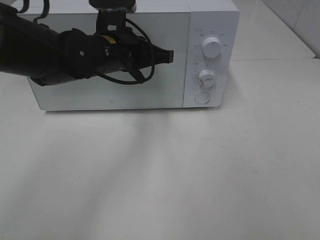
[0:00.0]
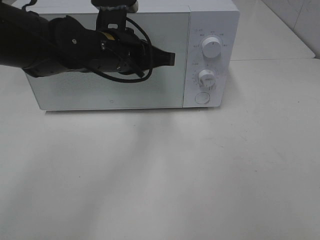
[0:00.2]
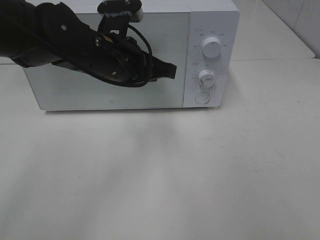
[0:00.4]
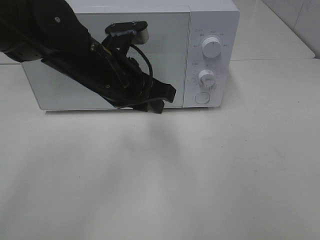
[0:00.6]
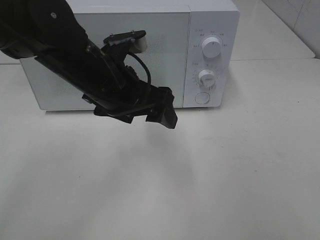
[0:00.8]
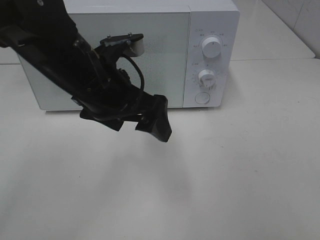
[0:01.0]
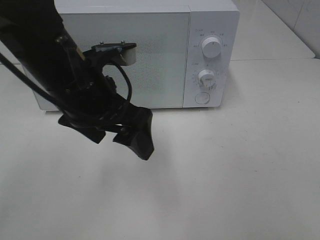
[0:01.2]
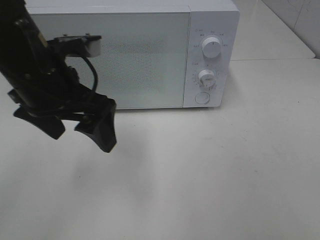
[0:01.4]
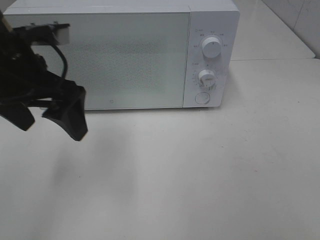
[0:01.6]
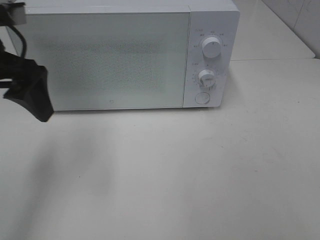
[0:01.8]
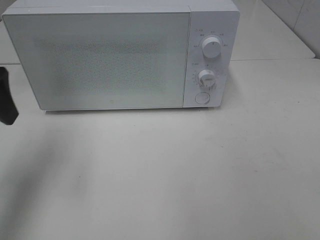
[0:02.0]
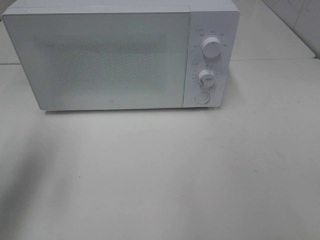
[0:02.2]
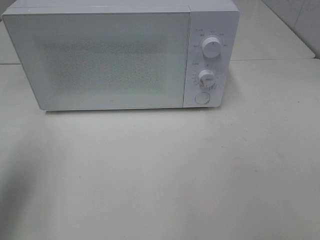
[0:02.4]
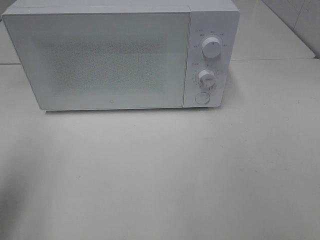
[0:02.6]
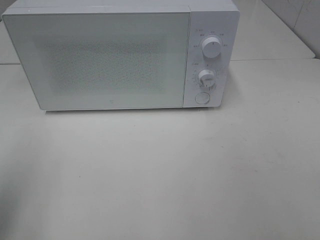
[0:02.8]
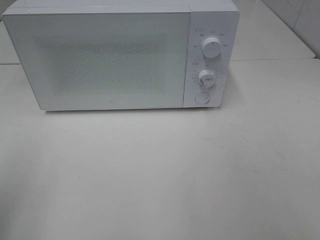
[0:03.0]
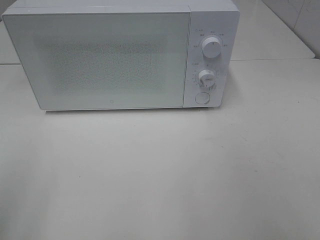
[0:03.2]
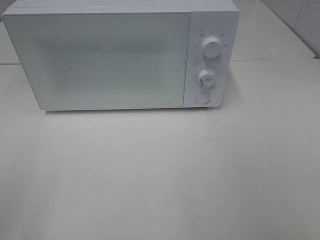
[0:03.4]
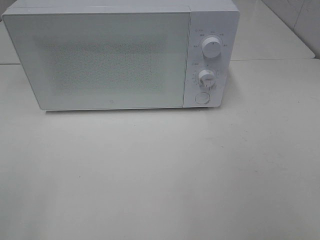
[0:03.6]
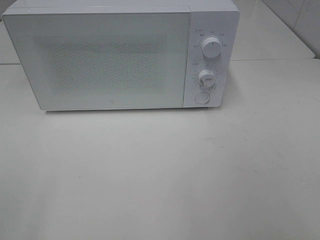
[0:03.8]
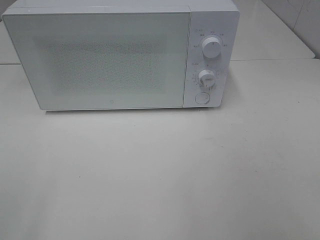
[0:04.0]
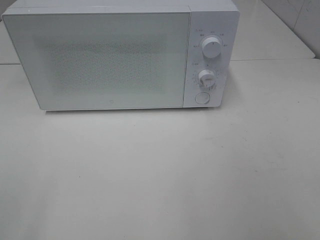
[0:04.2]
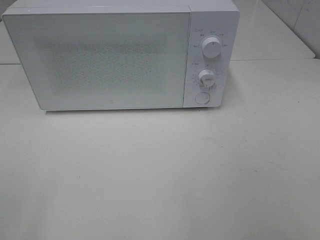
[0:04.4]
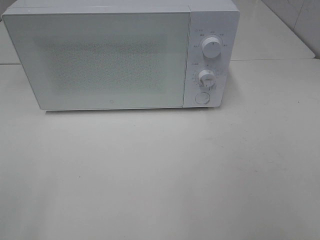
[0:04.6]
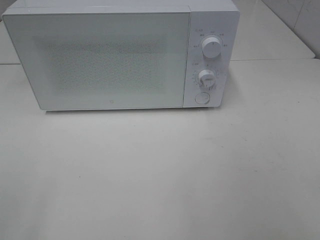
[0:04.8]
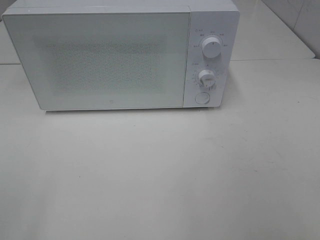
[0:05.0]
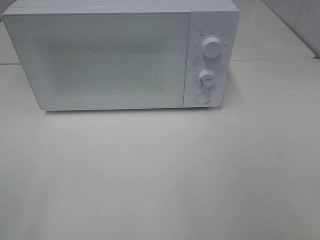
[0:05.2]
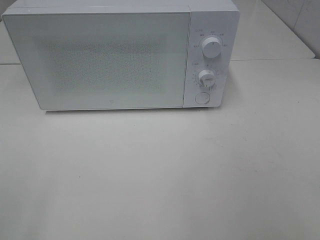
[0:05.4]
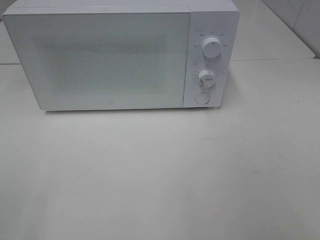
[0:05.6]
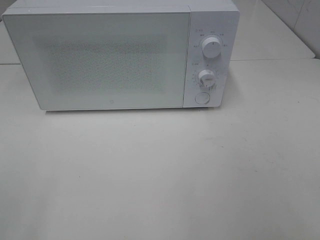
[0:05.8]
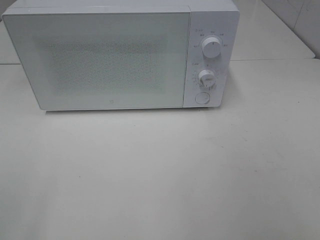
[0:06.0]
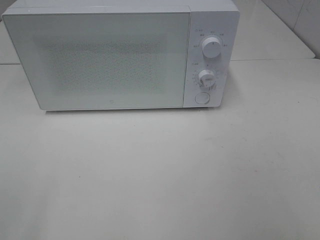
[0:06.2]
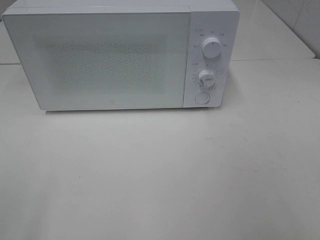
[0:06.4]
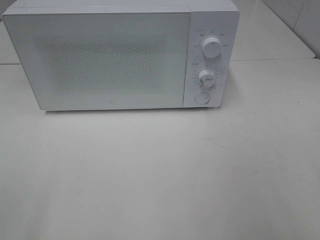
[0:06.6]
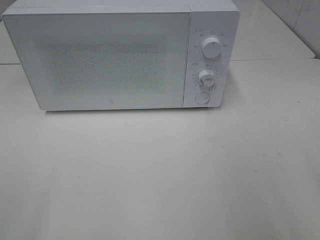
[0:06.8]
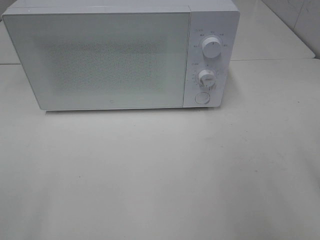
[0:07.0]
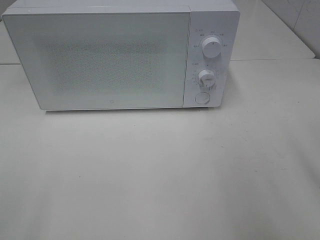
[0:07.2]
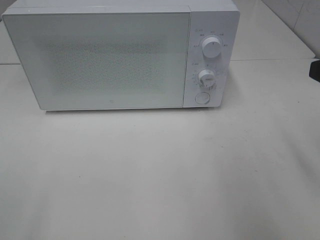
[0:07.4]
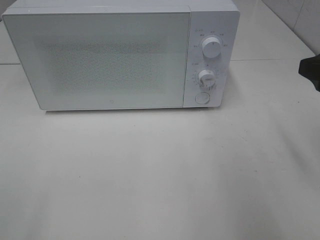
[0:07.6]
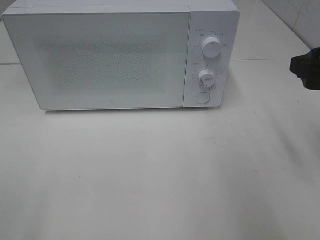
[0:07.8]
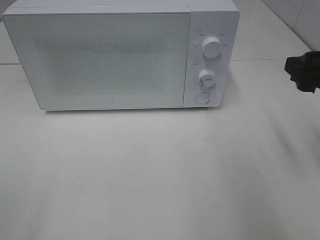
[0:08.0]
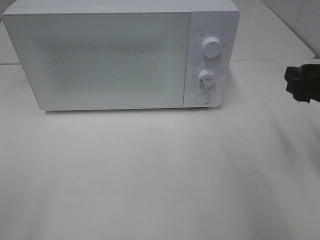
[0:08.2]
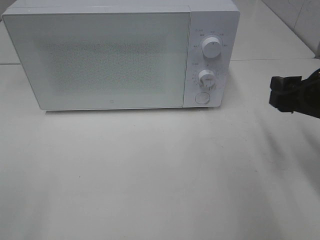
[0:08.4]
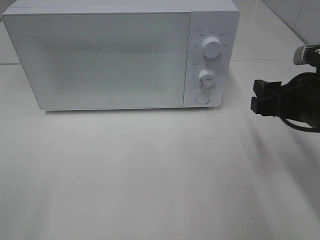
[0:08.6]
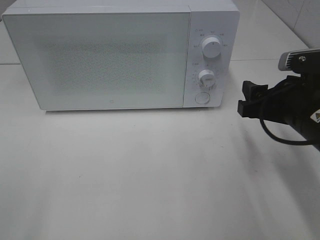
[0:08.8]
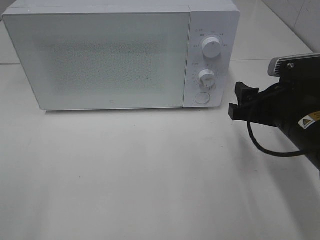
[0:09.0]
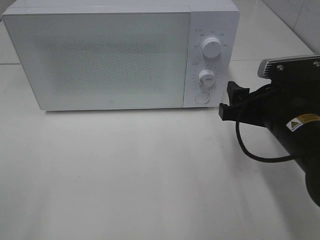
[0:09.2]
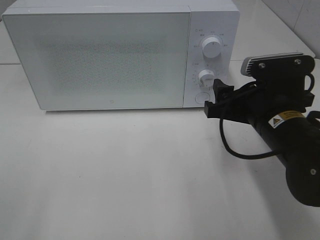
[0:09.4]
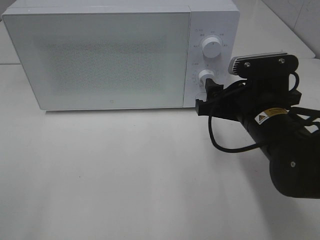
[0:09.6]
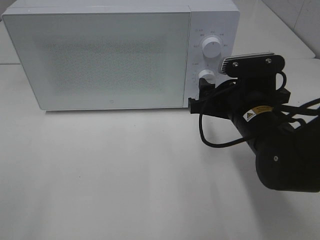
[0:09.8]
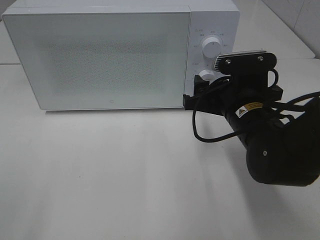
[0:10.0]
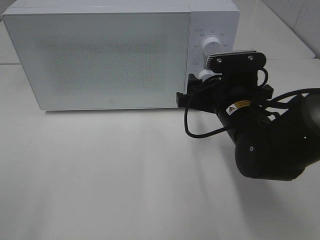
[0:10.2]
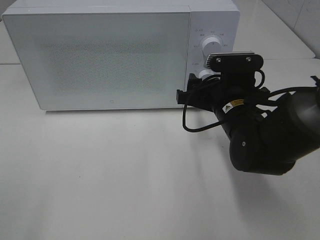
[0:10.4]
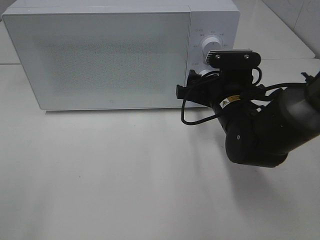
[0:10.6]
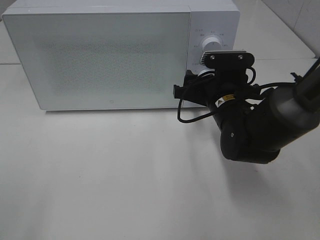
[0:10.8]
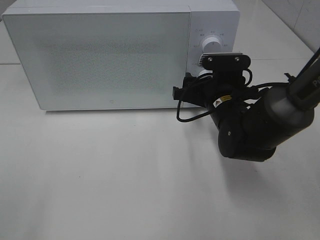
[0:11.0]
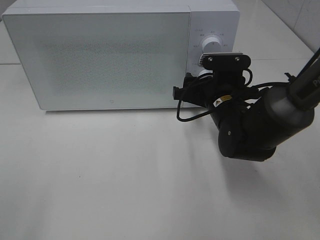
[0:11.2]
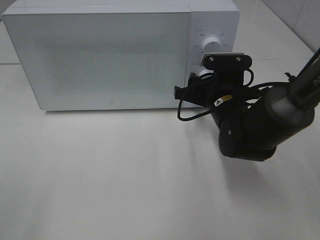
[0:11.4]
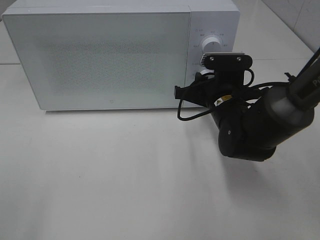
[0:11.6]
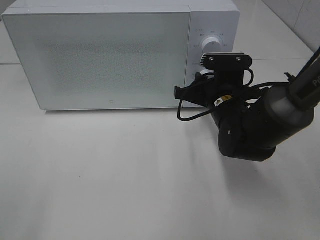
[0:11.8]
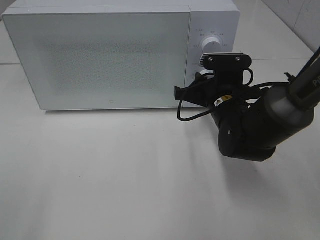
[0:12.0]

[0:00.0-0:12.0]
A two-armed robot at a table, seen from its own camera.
Task of the whole recording: Heat Sandwich.
0:00.0 to 0:01.6: The left gripper heads to the left, backward and upward, covering some 15 cm, and opens up.
0:01.6 to 0:03.0: The left gripper goes approximately 20 cm backward and to the left.
0:04.4 to 0:06.0: The two grippers keep their place.
0:06.0 to 0:07.6: The right gripper travels forward by approximately 20 cm.
0:07.6 to 0:09.0: The right gripper heads downward and to the left, covering some 10 cm.
0:09.0 to 0:10.4: The right gripper travels to the left and forward by approximately 10 cm.
0:10.4 to 0:12.0: The right gripper closes.

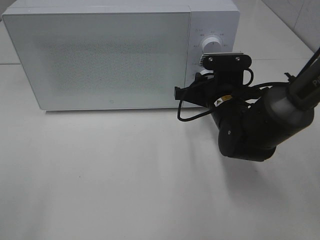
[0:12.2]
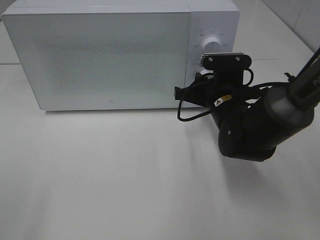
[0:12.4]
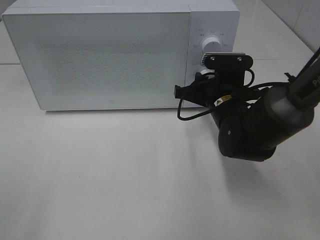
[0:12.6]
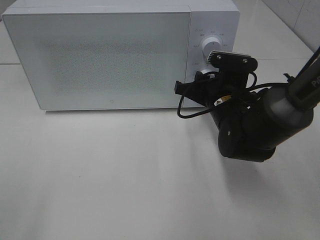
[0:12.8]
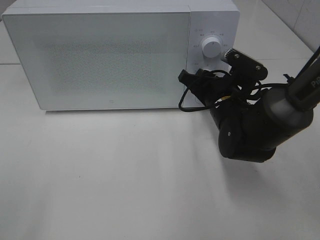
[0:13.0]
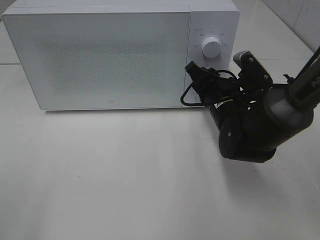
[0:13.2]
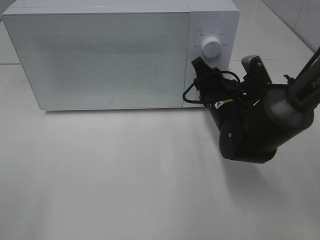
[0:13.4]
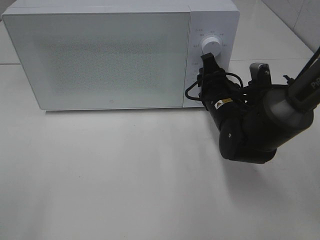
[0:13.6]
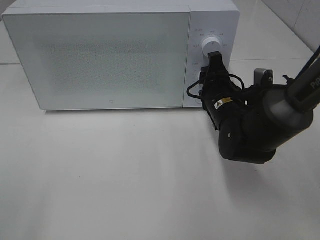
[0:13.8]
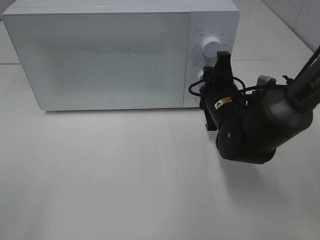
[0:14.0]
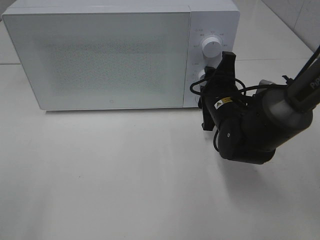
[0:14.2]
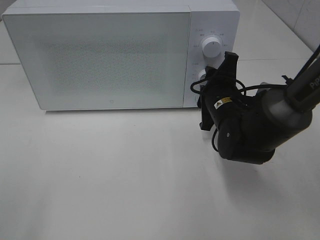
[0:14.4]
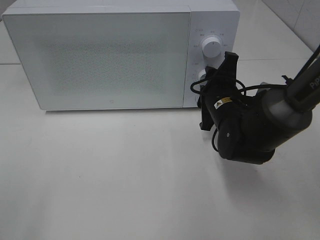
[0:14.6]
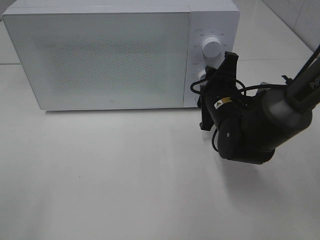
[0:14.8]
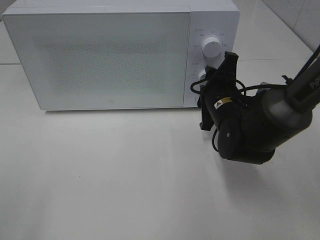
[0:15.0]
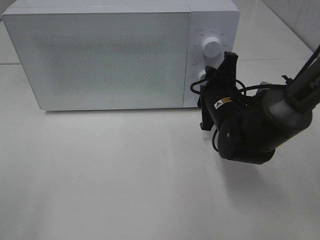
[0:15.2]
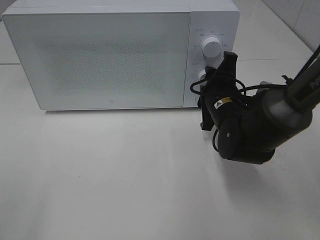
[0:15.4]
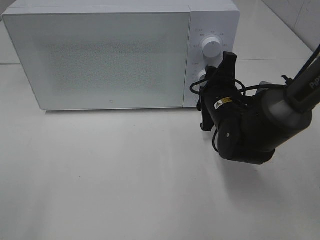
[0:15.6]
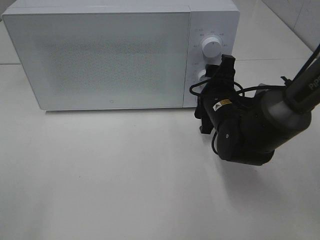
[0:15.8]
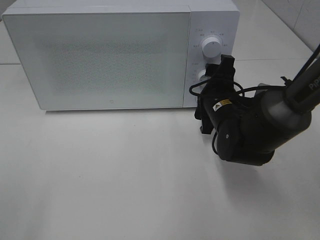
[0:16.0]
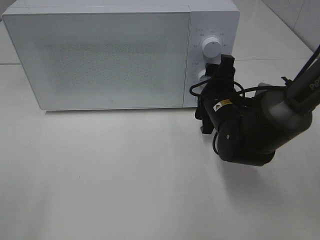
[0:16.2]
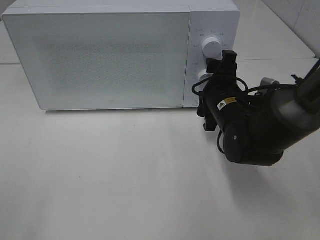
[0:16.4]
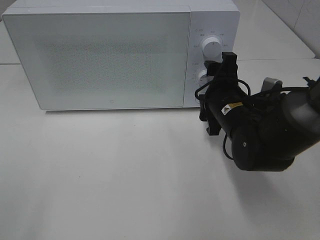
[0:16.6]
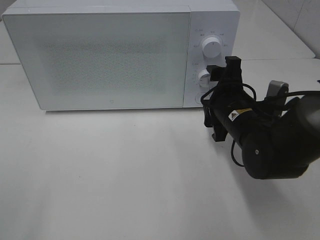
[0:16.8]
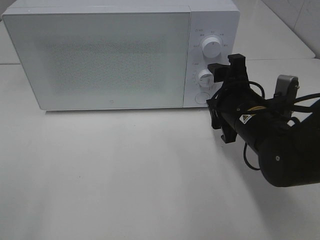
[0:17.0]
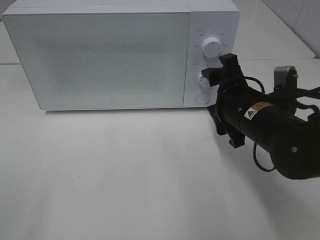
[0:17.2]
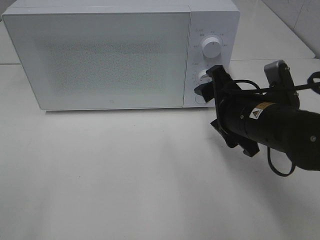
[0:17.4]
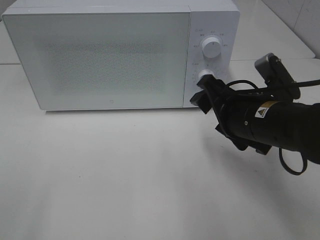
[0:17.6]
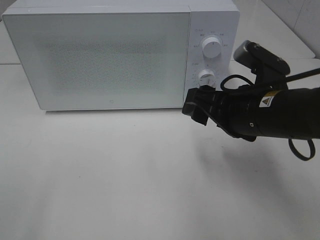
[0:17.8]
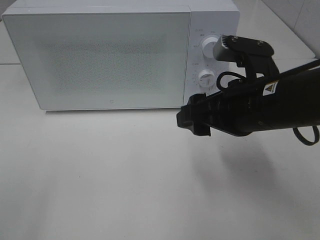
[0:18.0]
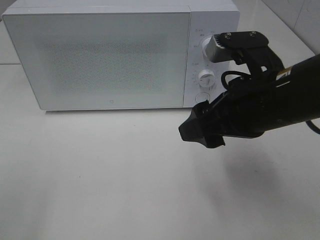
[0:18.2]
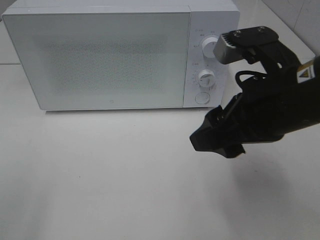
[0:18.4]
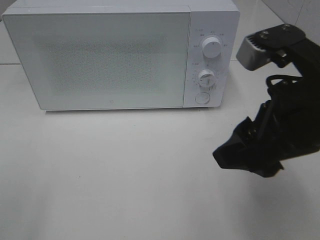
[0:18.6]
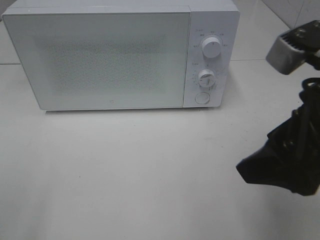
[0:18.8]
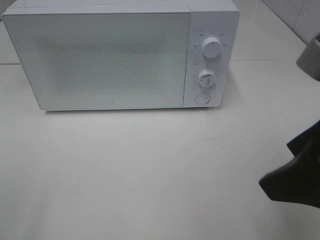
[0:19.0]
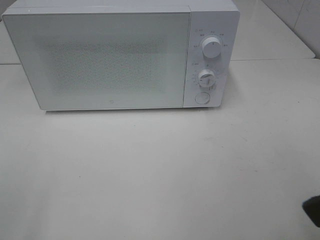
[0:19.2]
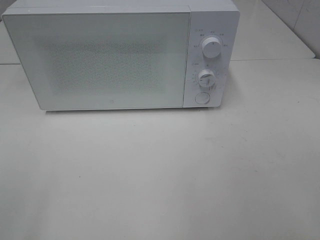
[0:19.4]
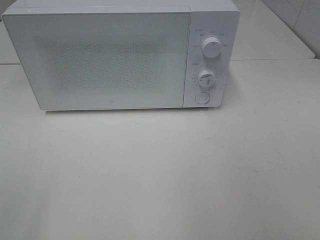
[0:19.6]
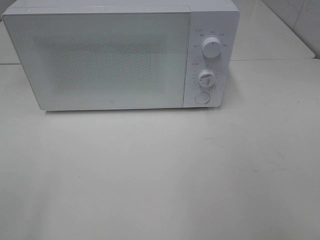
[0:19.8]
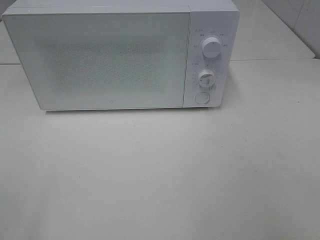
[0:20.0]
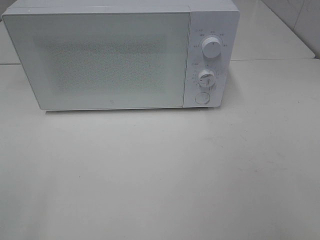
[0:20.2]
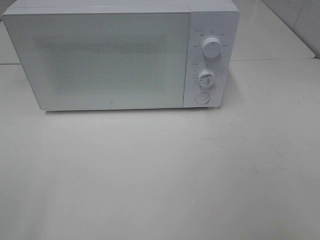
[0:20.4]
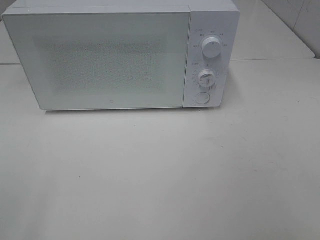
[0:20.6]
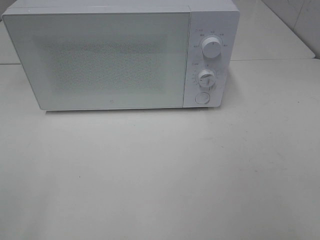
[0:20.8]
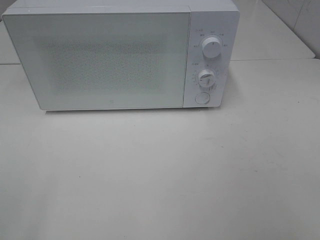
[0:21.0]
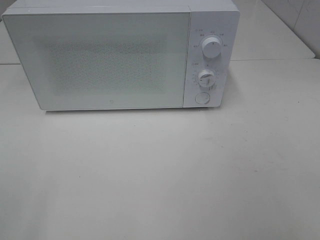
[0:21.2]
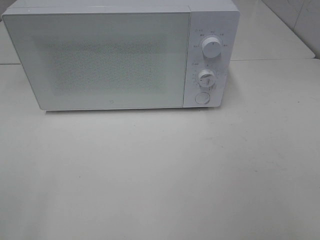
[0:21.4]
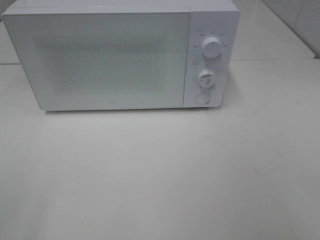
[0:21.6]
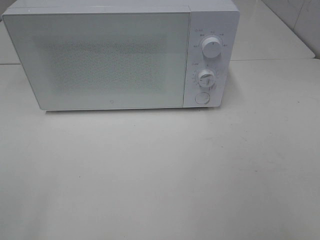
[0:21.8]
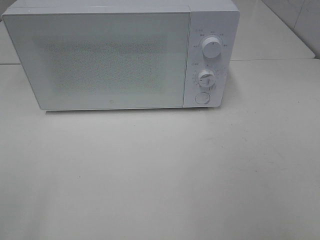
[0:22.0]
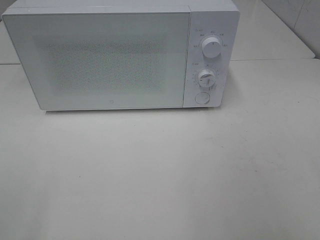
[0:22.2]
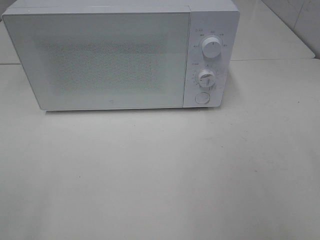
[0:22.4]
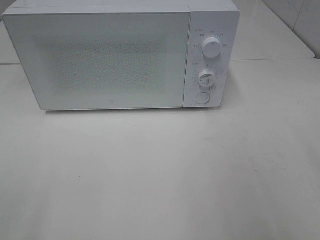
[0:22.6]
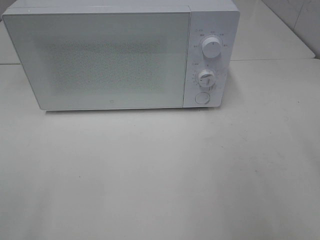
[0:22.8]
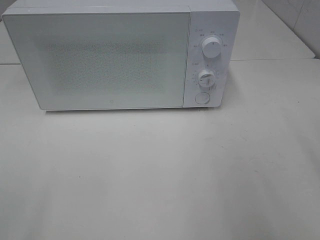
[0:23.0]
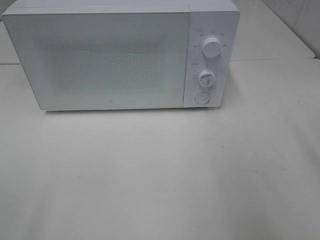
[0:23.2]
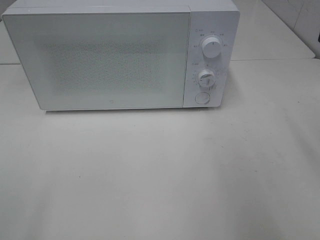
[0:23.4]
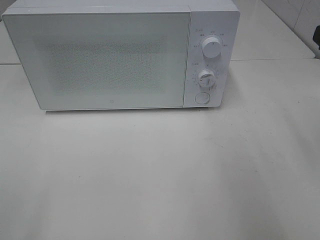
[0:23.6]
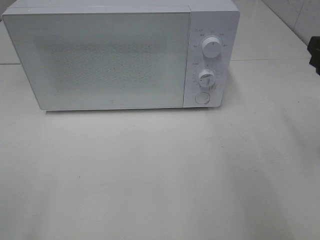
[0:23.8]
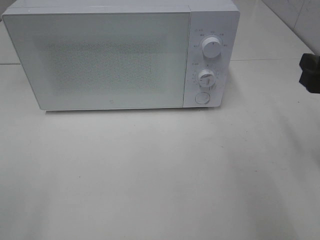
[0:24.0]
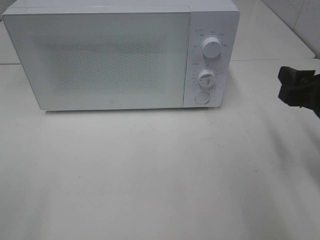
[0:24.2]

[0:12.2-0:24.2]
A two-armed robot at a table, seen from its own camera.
Task of the whole recording: Heat Sandwich.
Step, 0:12.2 to 0:16.4: Right hand: twist timer button.
0:15.2 to 0:16.6: The right gripper opens its fingers.
0:16.6 to 0:18.2: The right gripper moves upward and backward, roughly 15 cm.
0:18.2 to 0:19.8: The right gripper travels backward, to the right and upward by some 25 cm.
0:22.6 to 0:24.2: The right gripper is displaced downward and forward by approximately 15 cm.
